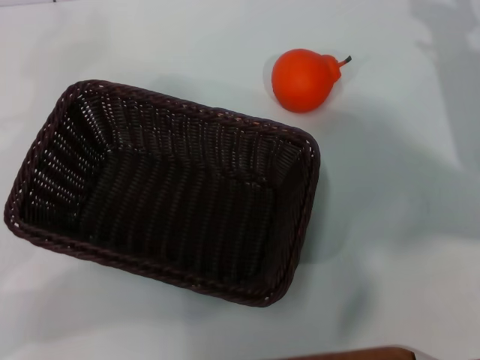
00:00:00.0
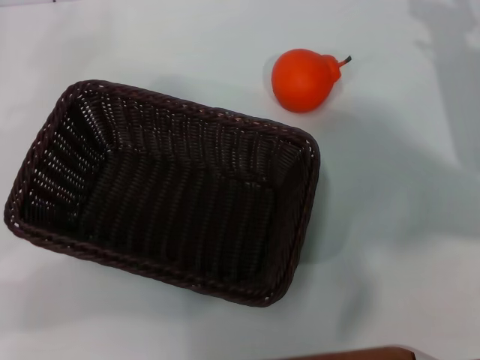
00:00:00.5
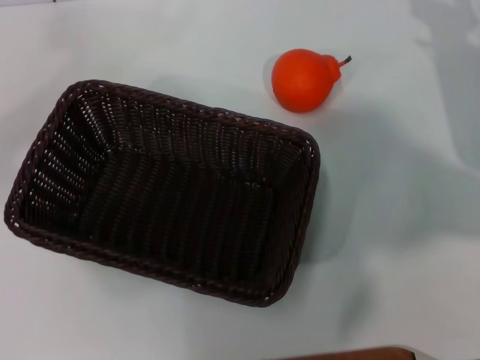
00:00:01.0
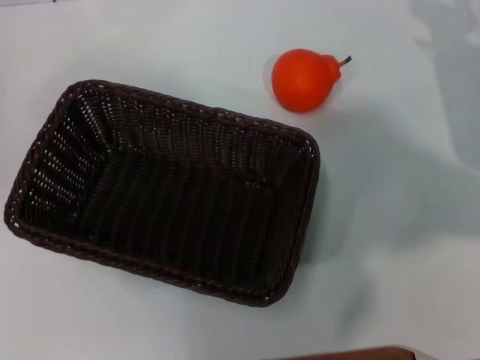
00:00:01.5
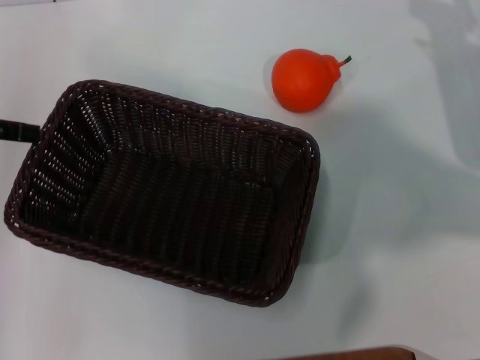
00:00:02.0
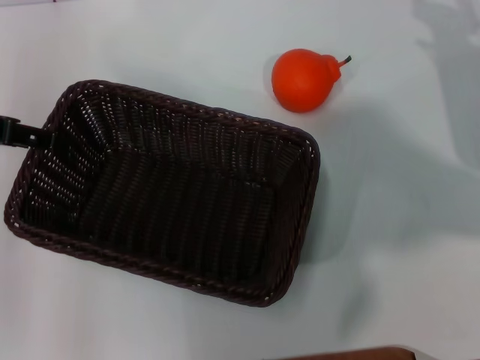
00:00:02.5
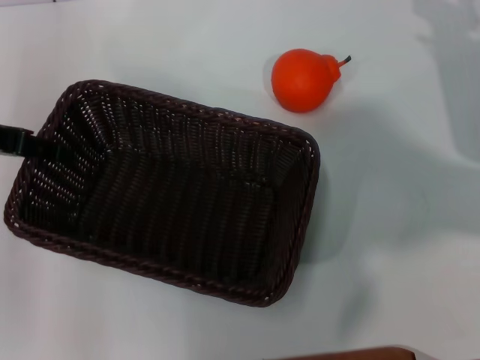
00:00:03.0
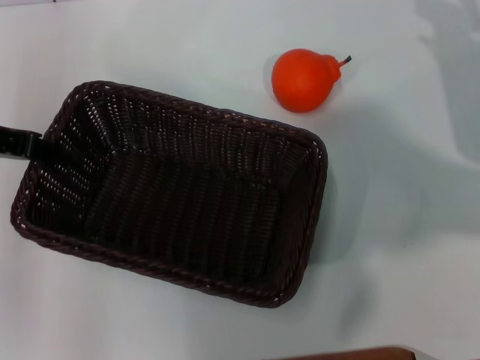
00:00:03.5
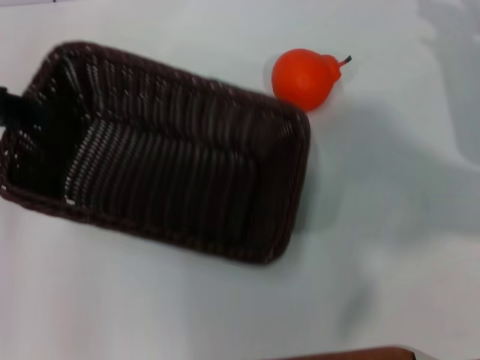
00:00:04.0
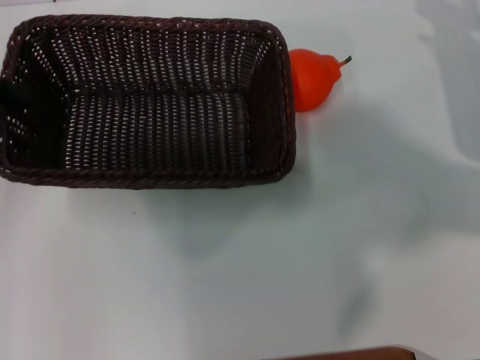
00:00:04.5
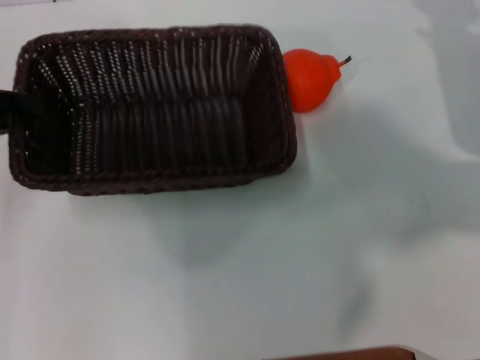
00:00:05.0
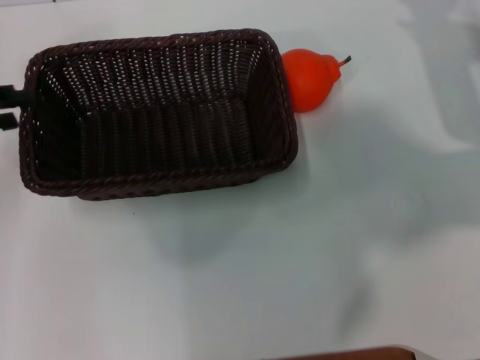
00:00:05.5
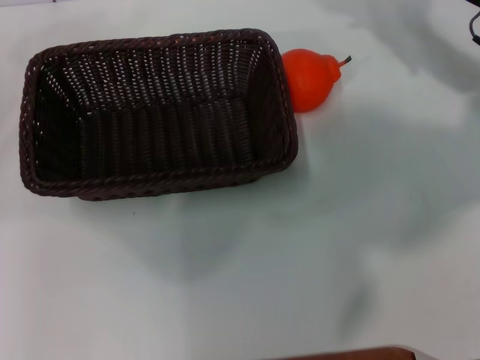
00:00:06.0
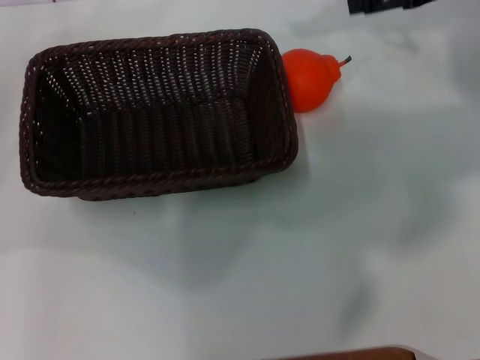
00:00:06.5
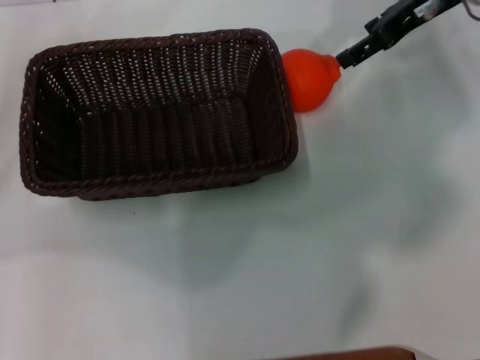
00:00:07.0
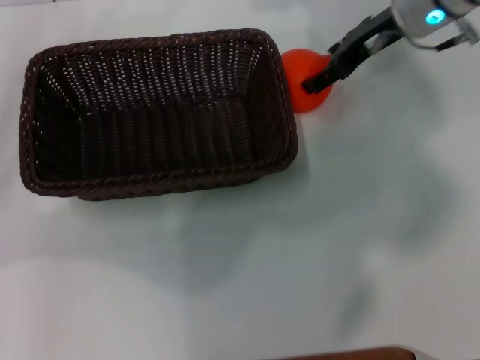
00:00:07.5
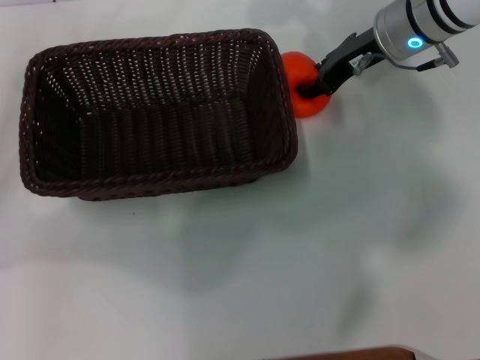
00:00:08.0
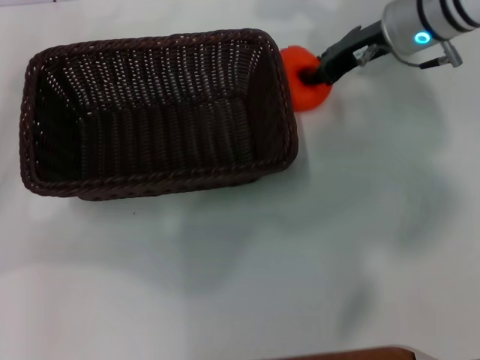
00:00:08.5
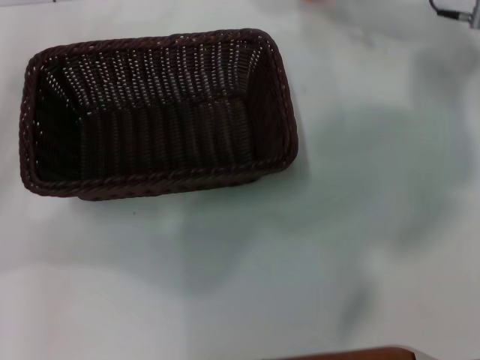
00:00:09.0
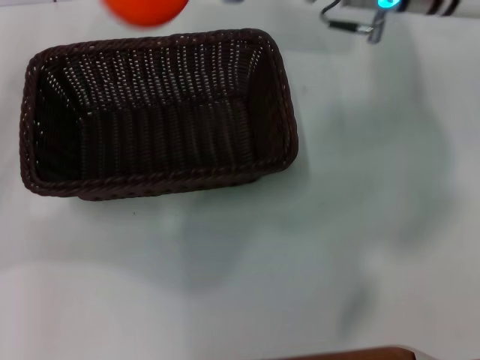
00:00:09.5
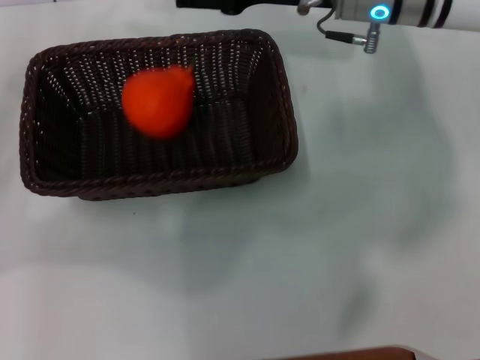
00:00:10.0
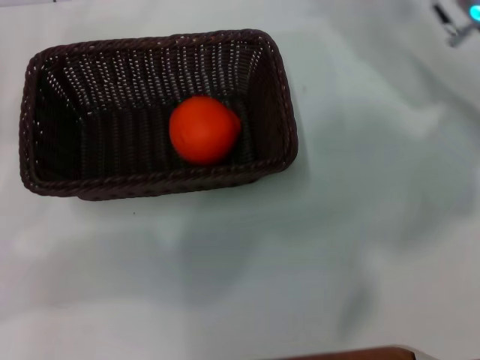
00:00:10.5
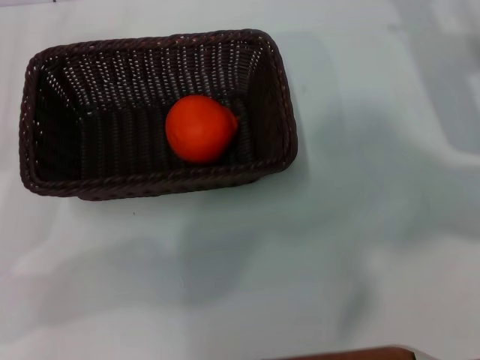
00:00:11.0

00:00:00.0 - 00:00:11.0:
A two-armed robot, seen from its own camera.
Task of the whole recording: the left gripper pick up the black basket and place it horizontally in the middle of the table, the right gripper pick up the orange and place it into the black basket.
Step, 00:00:00.0 - 00:00:03.5: Pick up the dark basket with the left gripper.
Step, 00:00:04.0 - 00:00:05.5: Place the dark basket in the center of view with the left gripper.
Step, 00:00:06.0 - 00:00:08.5: Pick up the orange with the right gripper.
Step, 00:00:09.0 - 00:00:09.5: Place the orange into the dark basket with the right gripper.
00:00:00.0 - 00:00:02.0: The left gripper moves upward and forward, about 15 cm, and opens its fingers.
00:00:02.0 - 00:00:03.5: The left gripper moves roughly 5 cm, and closes up.
00:00:03.5 - 00:00:05.5: The left gripper moves to the left, some 5 cm.
00:00:05.5 - 00:00:07.5: The right gripper moves to the left, upward and forward, roughly 15 cm. The left gripper opens.
00:00:07.5 - 00:00:09.0: The right gripper changes place by about 5 cm, and closes.
00:00:09.0 - 00:00:11.0: The left gripper ends up roughly 5 cm from where it was. Meanwhile the right gripper shifts some 10 cm backward, downward and to the right, and opens.
